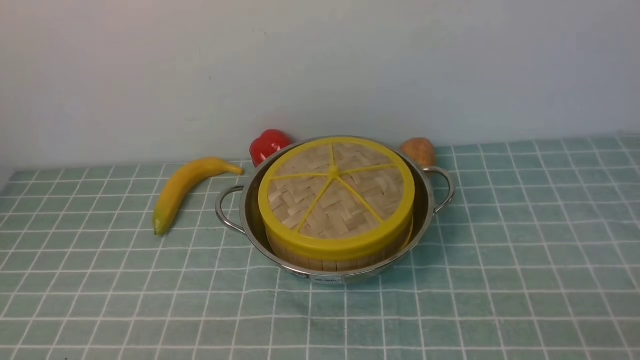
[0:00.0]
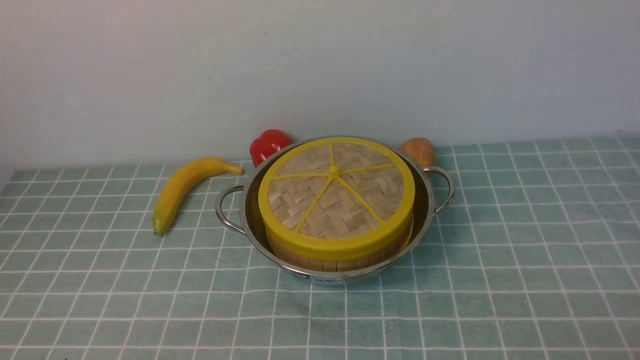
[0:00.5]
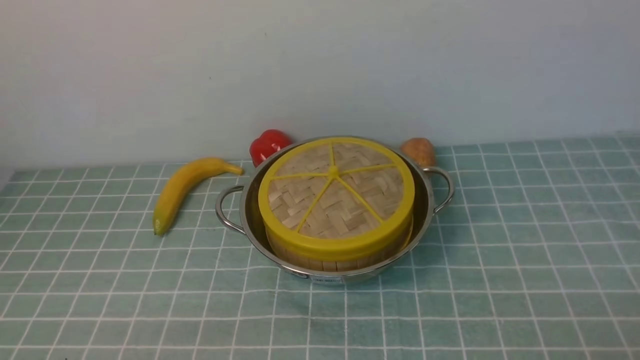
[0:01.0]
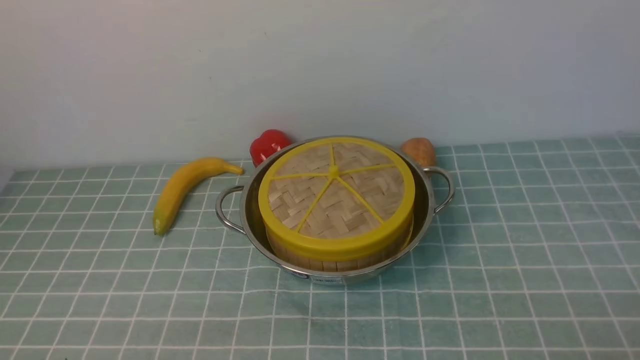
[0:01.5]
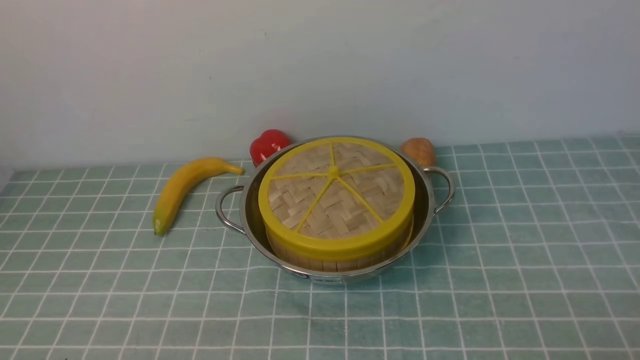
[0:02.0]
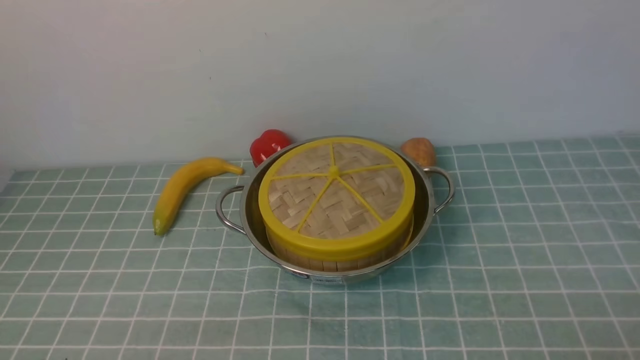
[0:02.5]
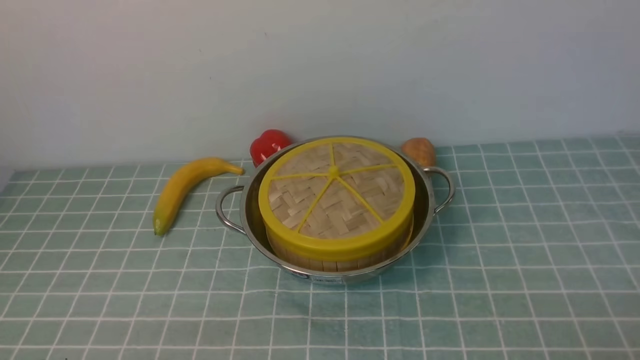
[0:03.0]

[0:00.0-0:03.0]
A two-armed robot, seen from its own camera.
Task of the whole recording: place the steamer in the pot on the blue tablecloth, and put the lid on the steamer.
0:01.5 to 0:03.0: The two grippers keep their place.
